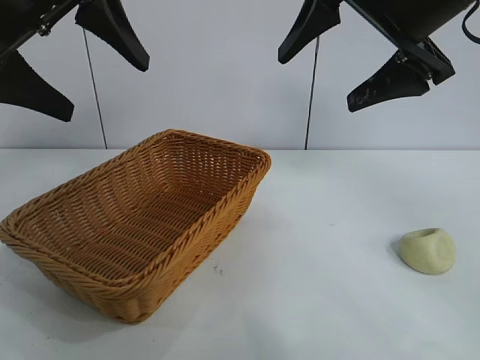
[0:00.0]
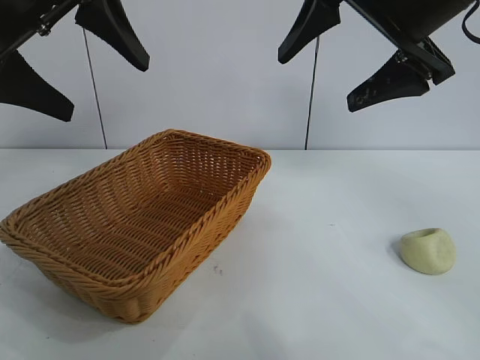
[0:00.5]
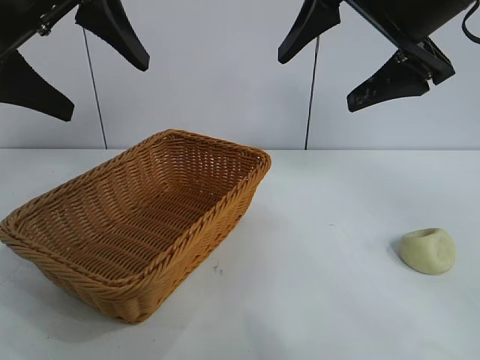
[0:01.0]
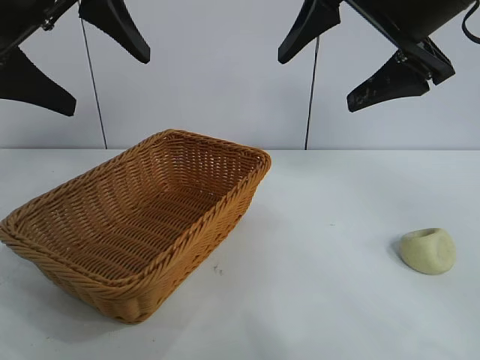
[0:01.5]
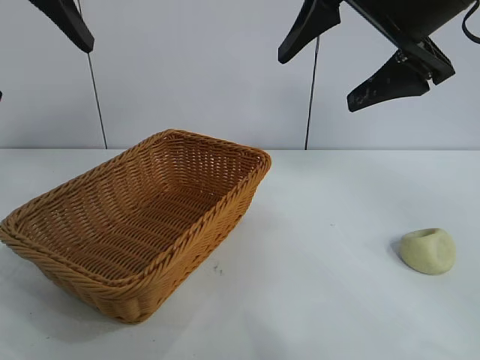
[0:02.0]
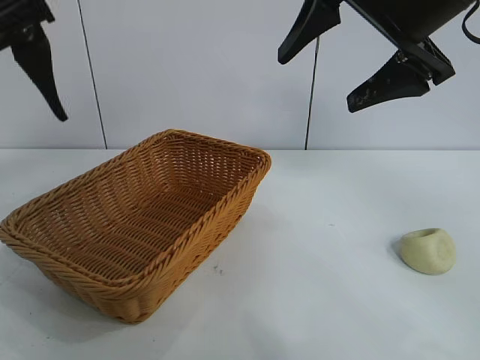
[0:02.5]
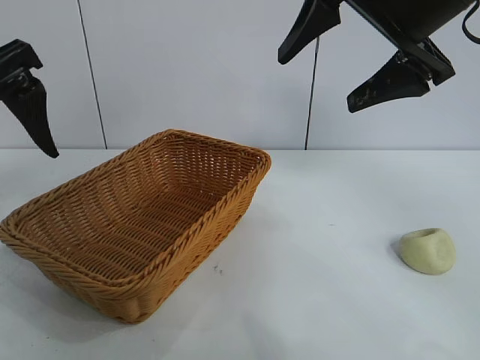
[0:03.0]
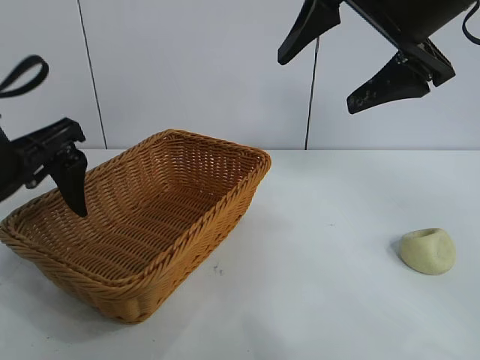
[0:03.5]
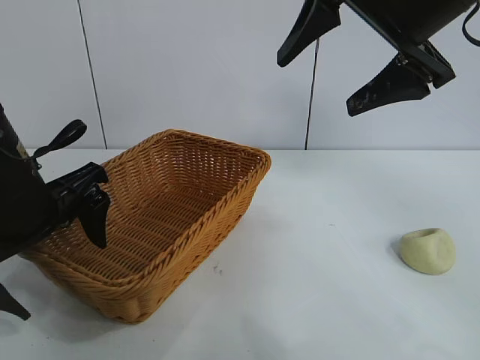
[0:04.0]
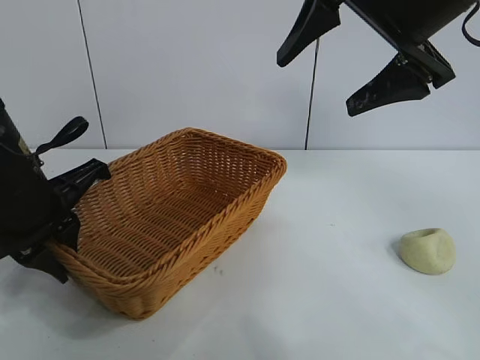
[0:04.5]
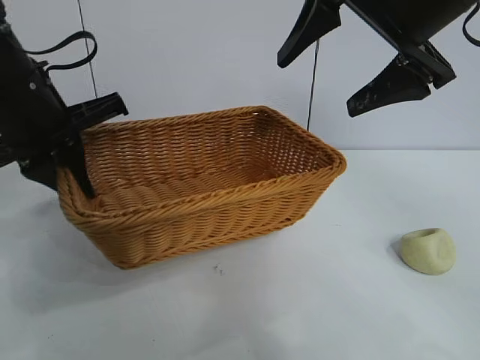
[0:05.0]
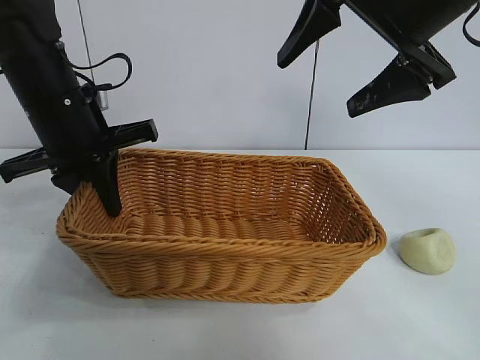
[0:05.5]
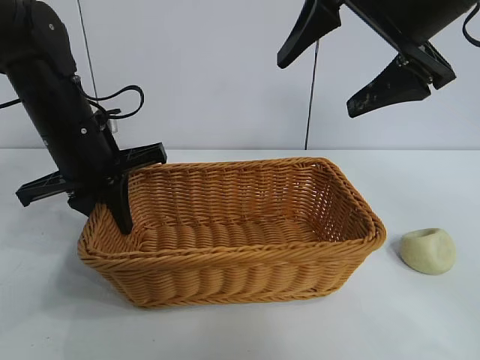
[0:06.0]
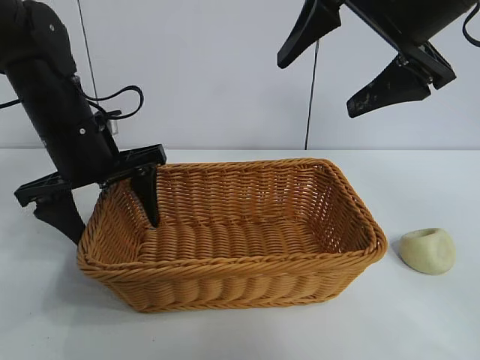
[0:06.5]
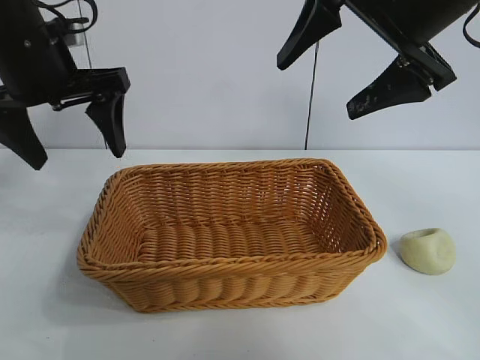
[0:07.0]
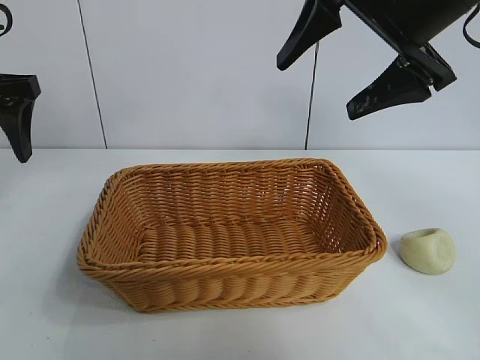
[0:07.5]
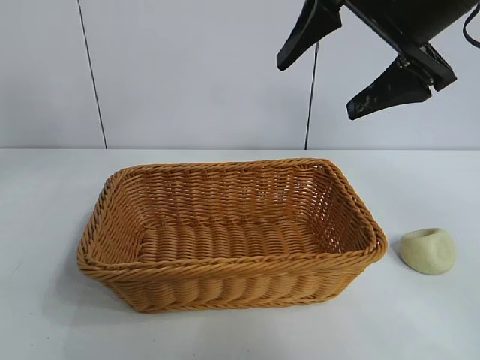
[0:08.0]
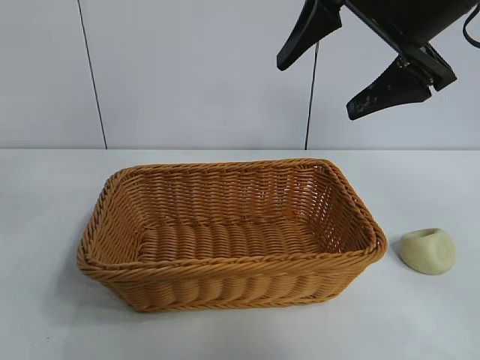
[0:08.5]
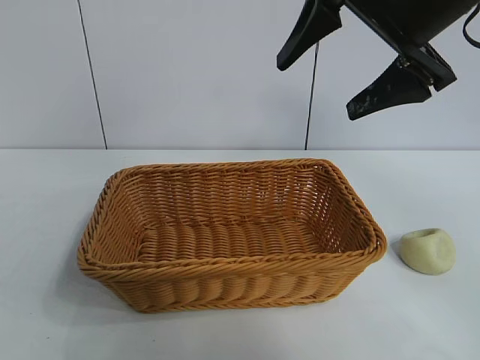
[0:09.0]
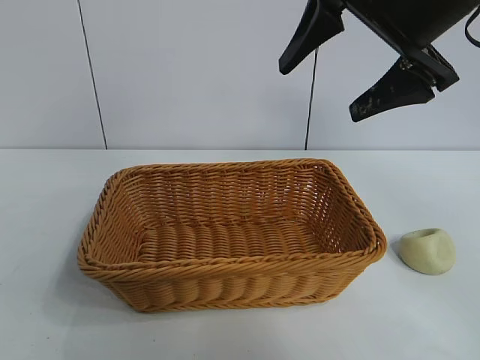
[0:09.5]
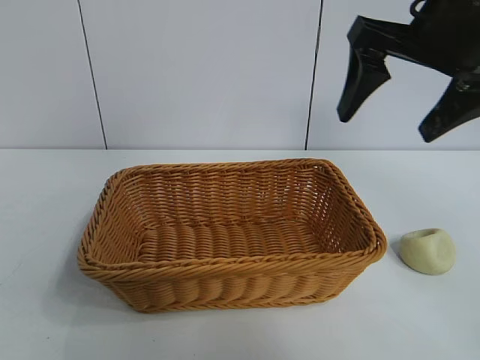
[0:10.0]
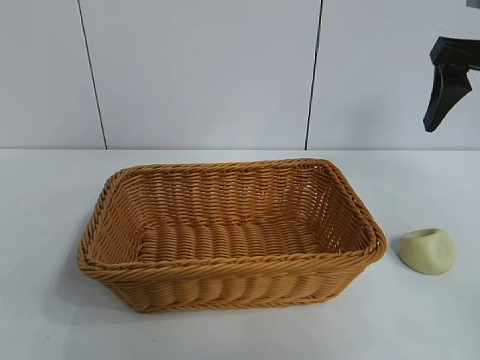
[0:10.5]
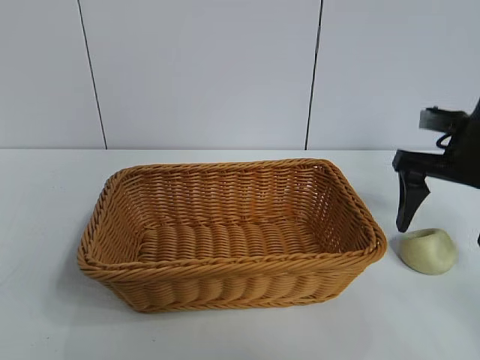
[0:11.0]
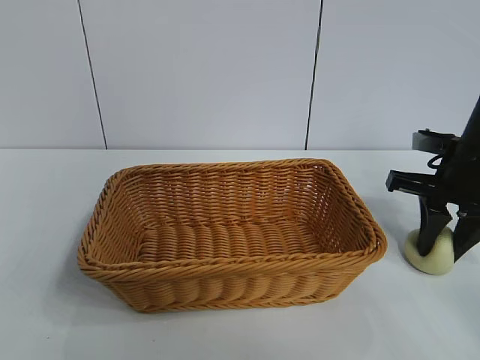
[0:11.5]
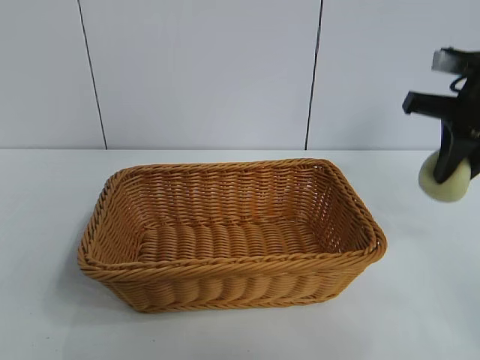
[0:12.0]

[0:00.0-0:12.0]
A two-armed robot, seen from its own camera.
Task of the whole recording: pick up the egg yolk pastry and put it into the basket.
Step, 0:01.0 to 0:04.5: Grasp the basket with left gripper.
Step, 0:05.0 to 0:06.0: Place the basket in the center of view with left gripper.
Step, 0:07.0 to 0:11.5: Grasp egg yolk pastry with right gripper.

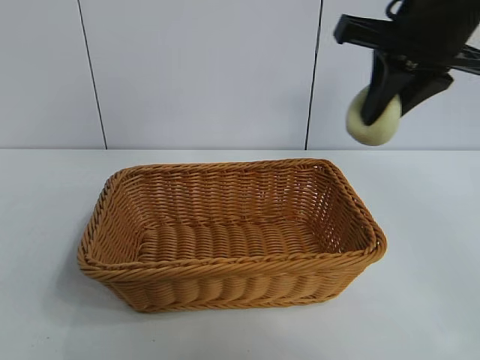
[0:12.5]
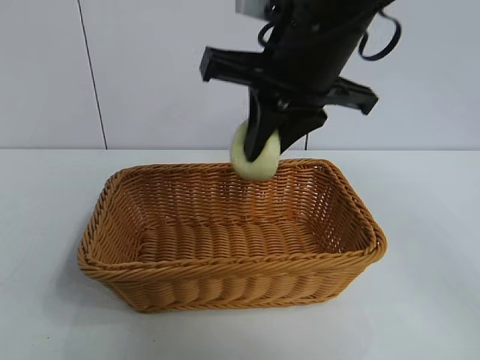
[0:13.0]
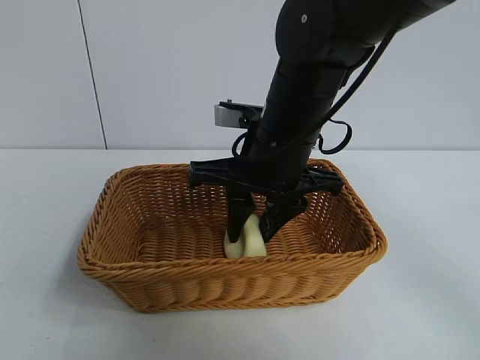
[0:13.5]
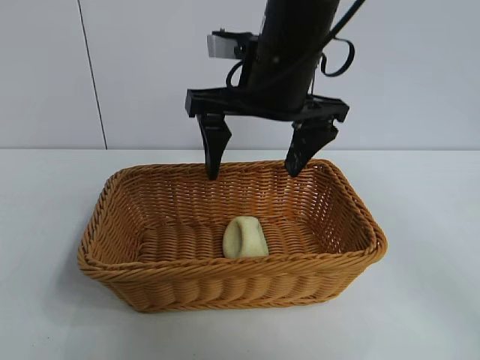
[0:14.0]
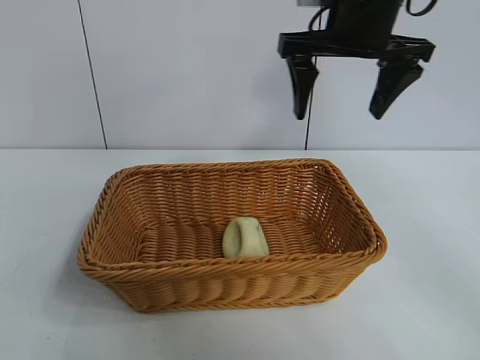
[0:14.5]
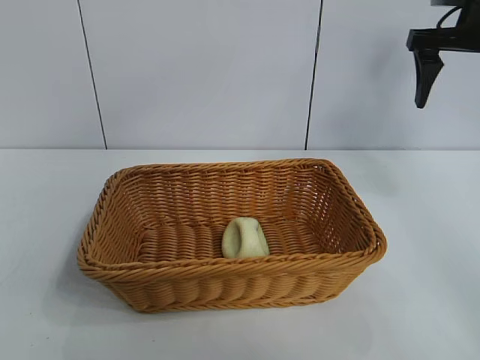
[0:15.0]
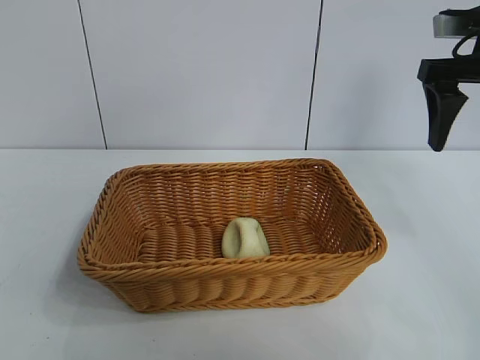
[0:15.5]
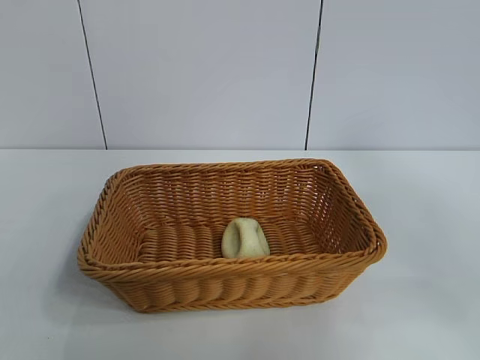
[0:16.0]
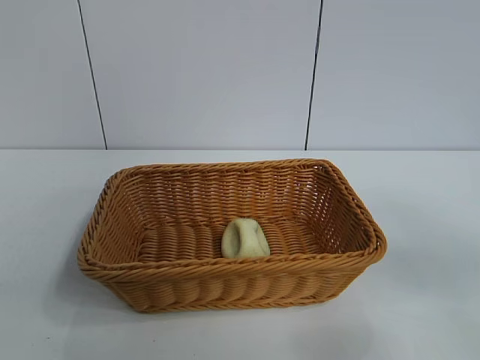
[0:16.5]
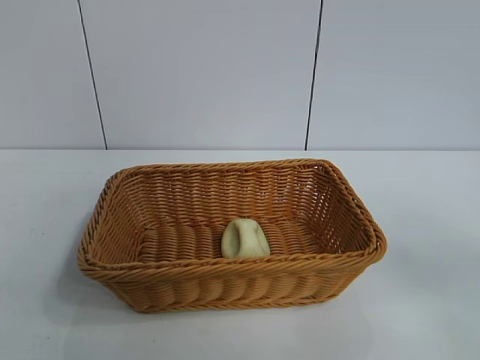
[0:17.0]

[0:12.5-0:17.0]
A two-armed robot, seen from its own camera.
Task of the whole recording: pick up the egg yolk pastry and put it into the basket.
Step, 0:12.5 to 0:13.5: Place the egg yolk pastry in the basket with right gripper.

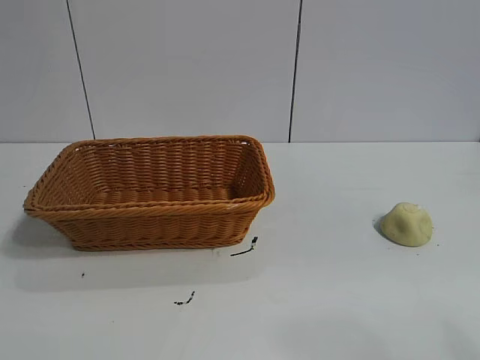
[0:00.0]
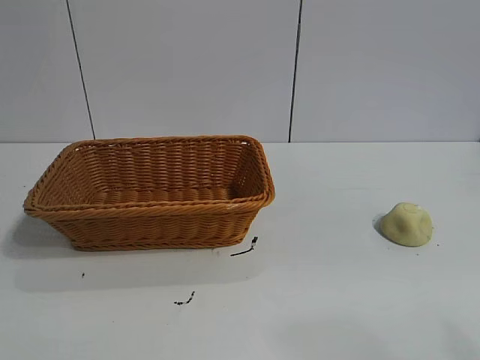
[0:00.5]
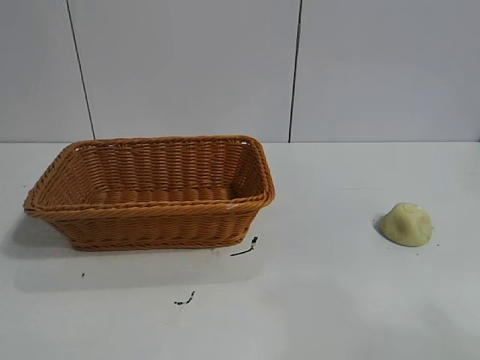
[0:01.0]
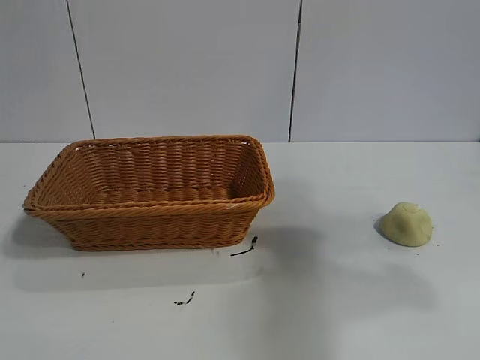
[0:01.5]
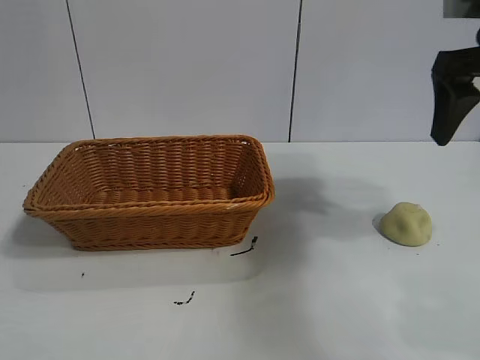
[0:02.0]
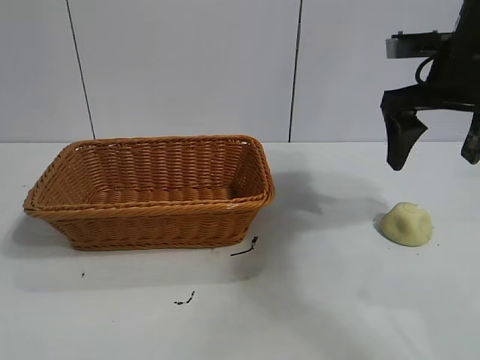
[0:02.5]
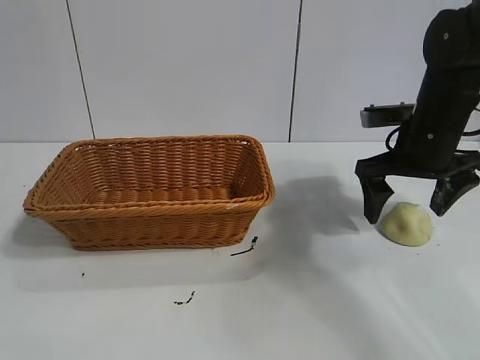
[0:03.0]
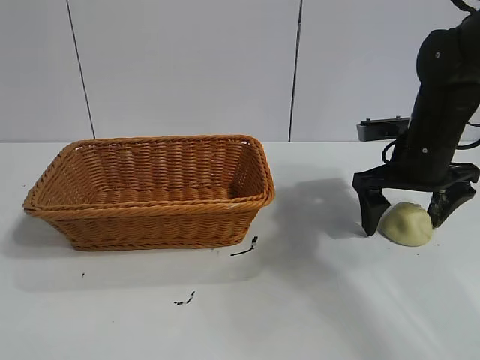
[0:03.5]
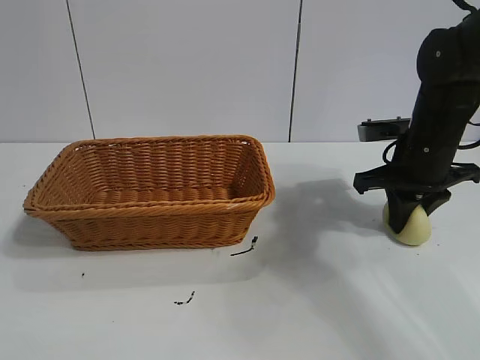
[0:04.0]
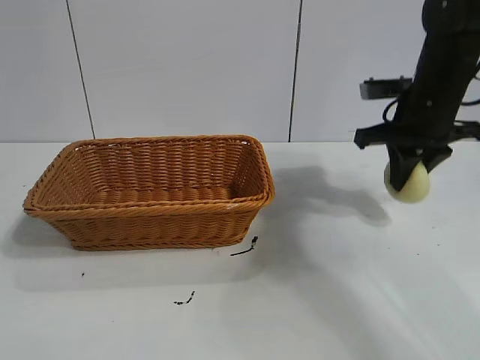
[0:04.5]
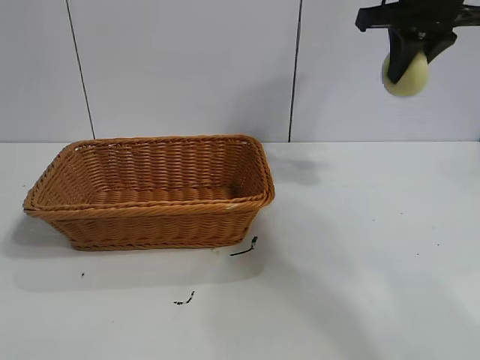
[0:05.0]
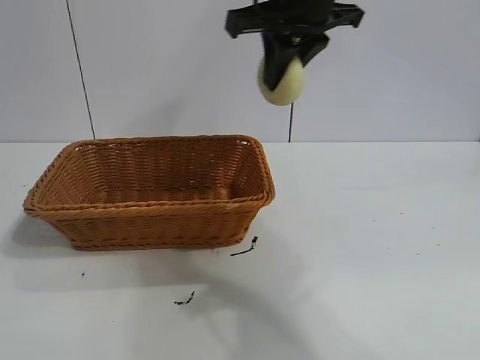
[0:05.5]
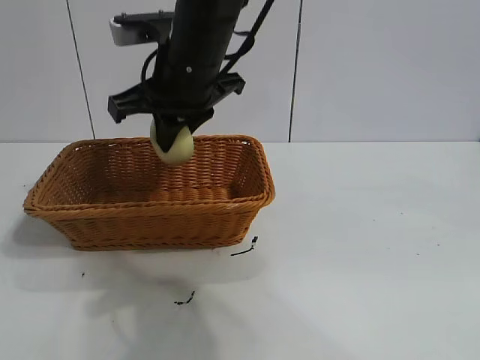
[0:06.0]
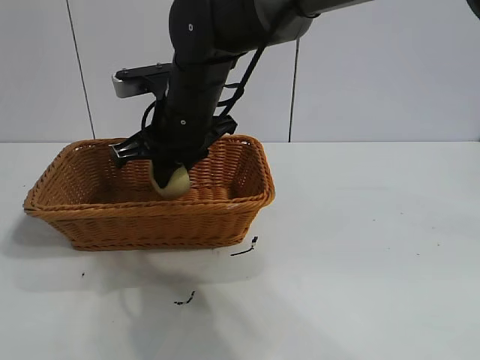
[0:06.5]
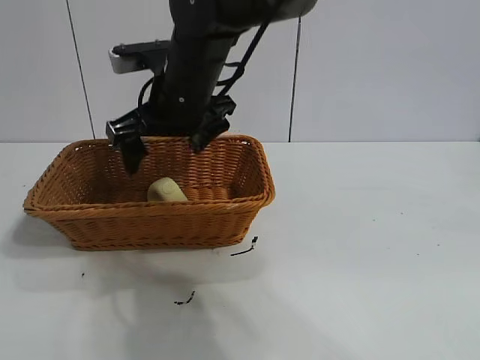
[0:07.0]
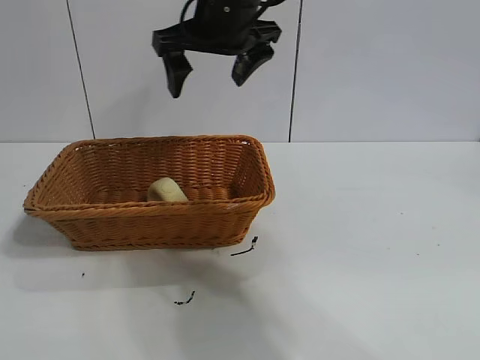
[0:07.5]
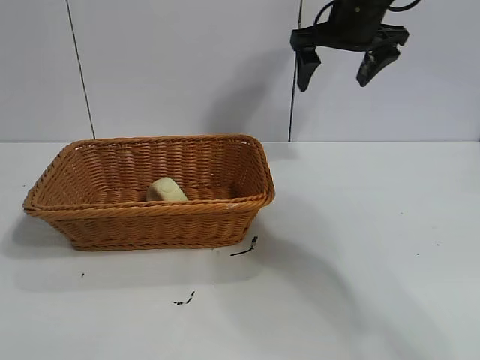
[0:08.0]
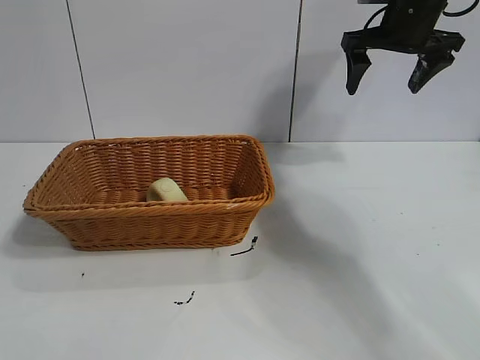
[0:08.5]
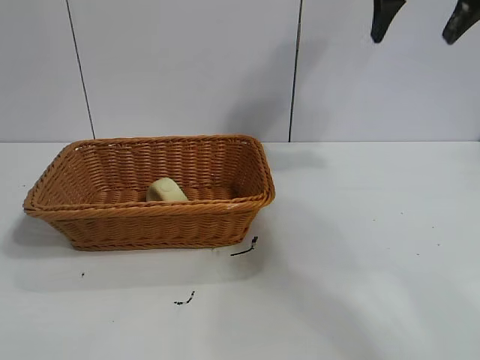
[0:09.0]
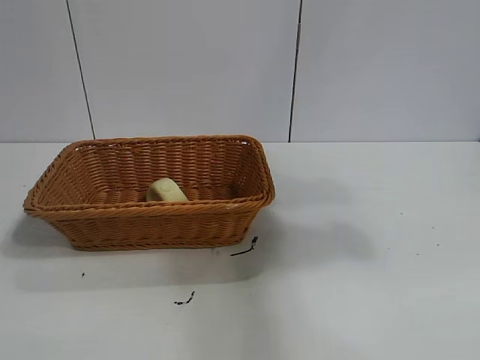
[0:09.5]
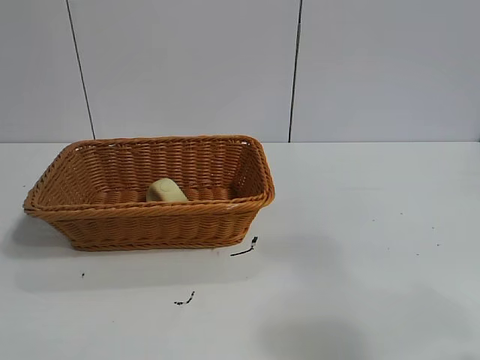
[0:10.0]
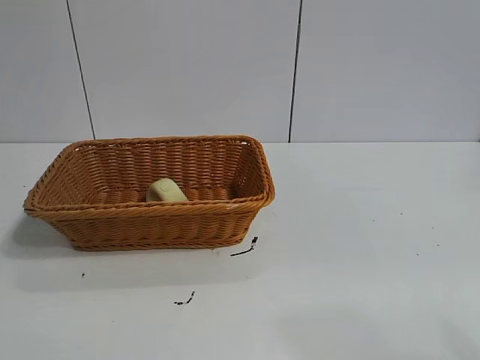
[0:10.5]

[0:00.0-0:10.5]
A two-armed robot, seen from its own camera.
Task of the whole recording: pick up the egg yolk pastry and put it into the basket.
Step, 0:01.0 to 0:03.5: Grasp egg yolk pastry with right gripper.
Step, 0:04.0 to 0:06.5: Place the egg yolk pastry in the basket with right gripper.
